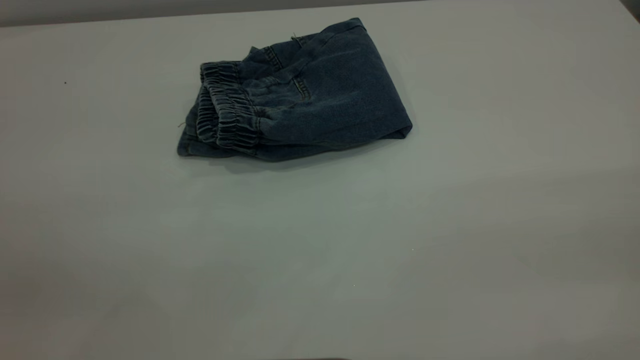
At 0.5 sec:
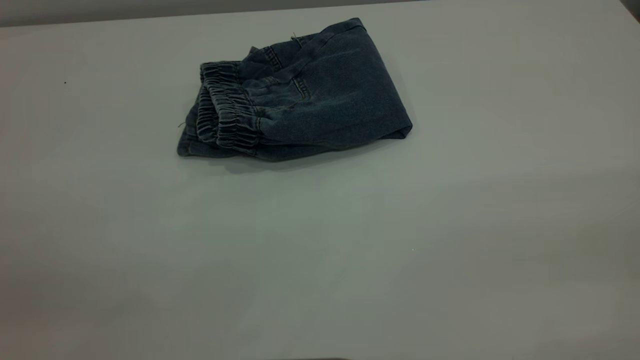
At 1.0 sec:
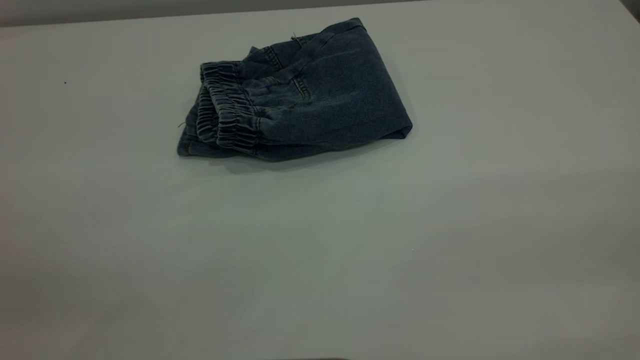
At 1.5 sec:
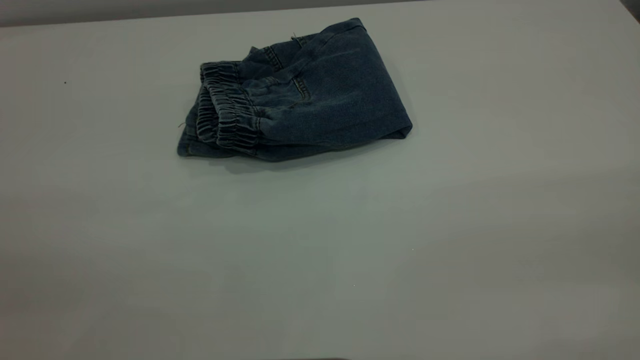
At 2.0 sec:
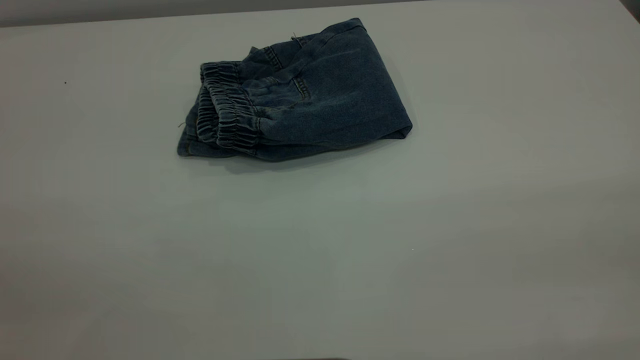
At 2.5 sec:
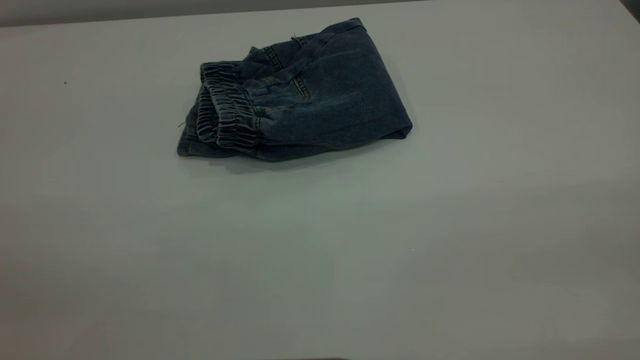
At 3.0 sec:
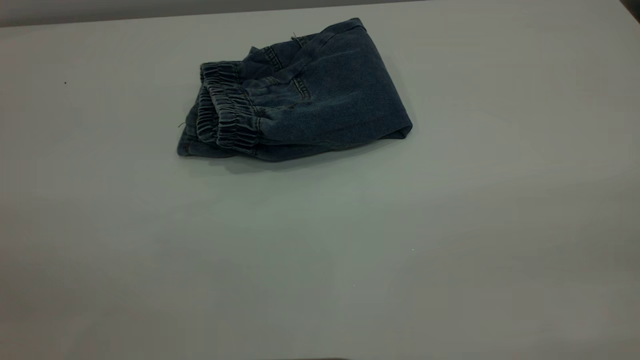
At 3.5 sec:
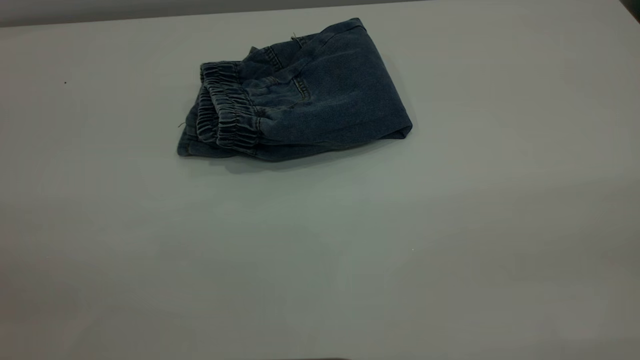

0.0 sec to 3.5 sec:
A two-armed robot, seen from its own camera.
2.0 sec to 3.5 sec: The two grippers keep their place.

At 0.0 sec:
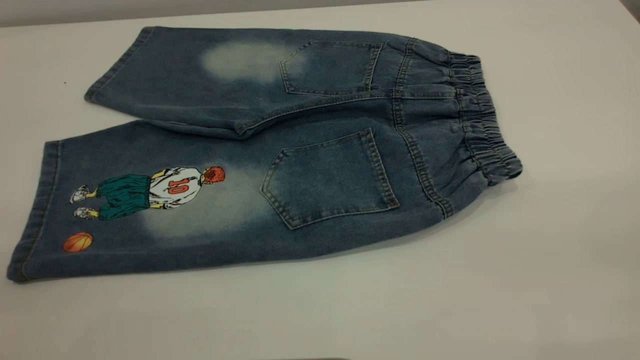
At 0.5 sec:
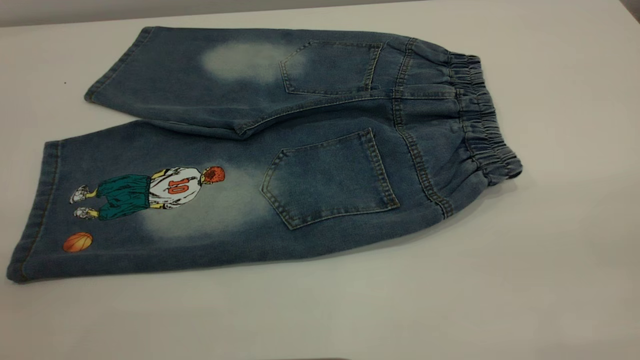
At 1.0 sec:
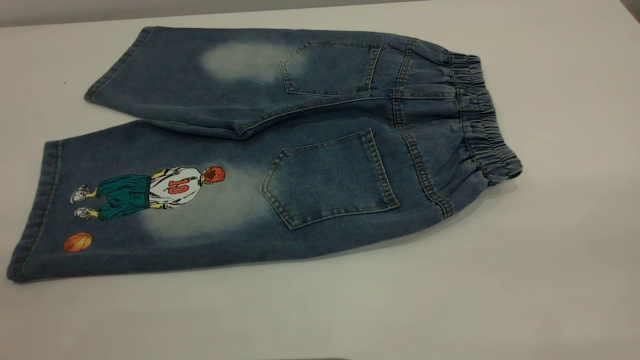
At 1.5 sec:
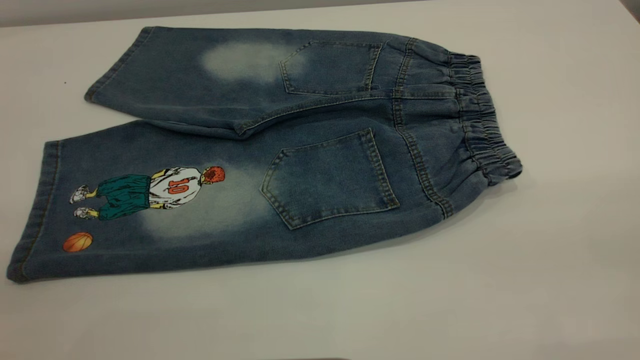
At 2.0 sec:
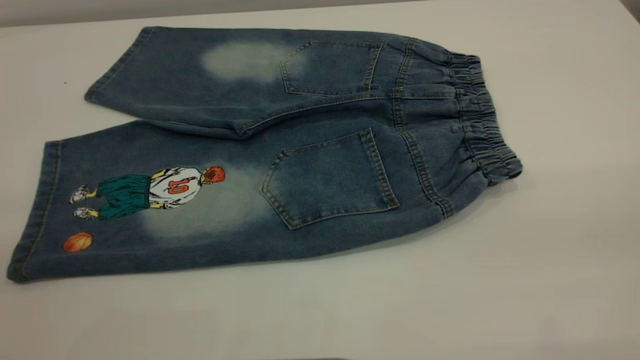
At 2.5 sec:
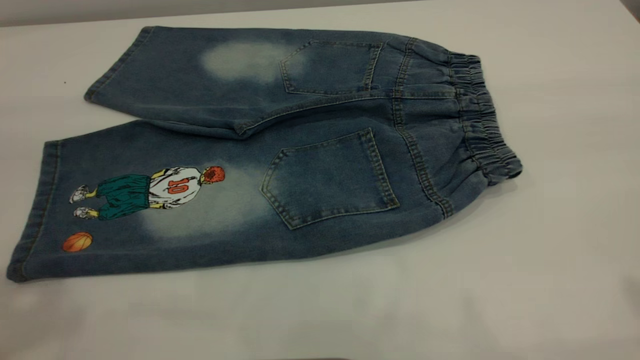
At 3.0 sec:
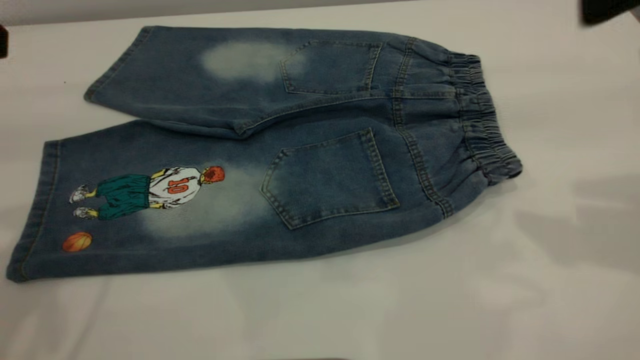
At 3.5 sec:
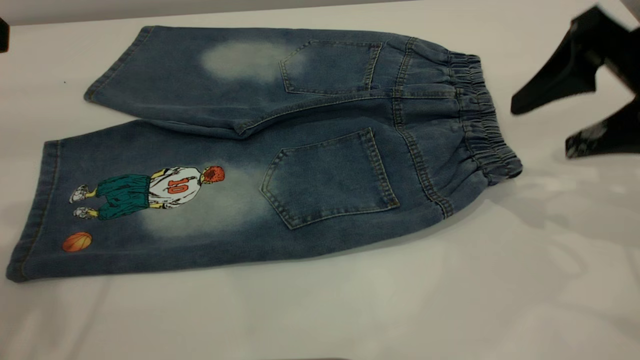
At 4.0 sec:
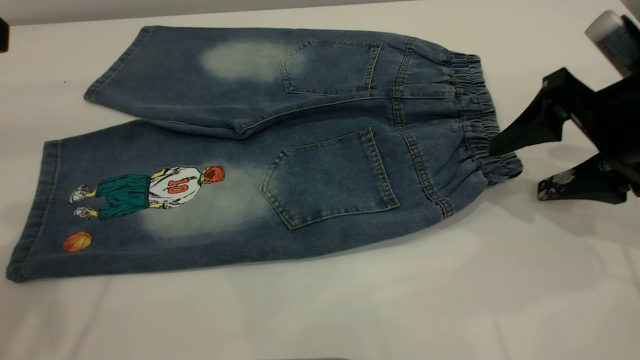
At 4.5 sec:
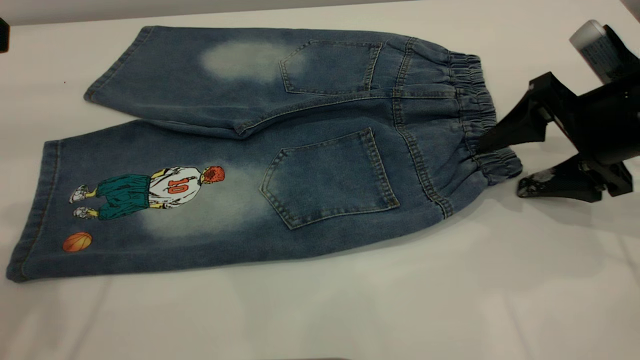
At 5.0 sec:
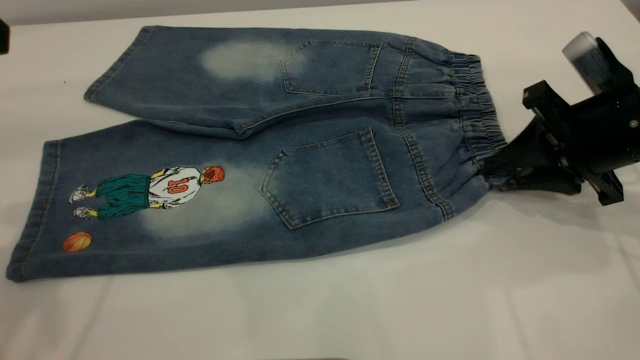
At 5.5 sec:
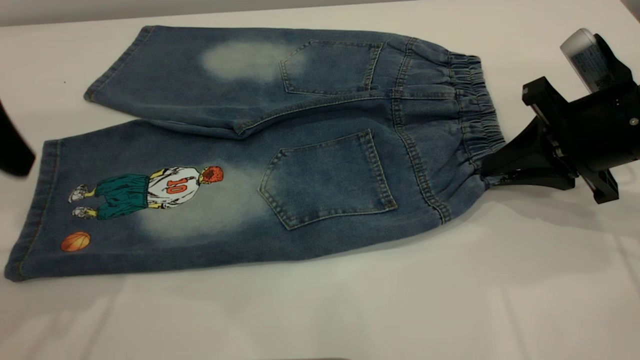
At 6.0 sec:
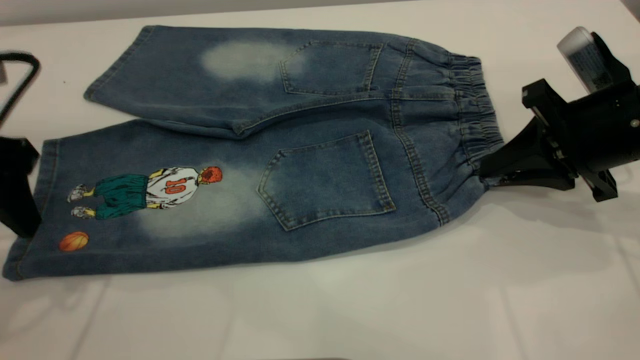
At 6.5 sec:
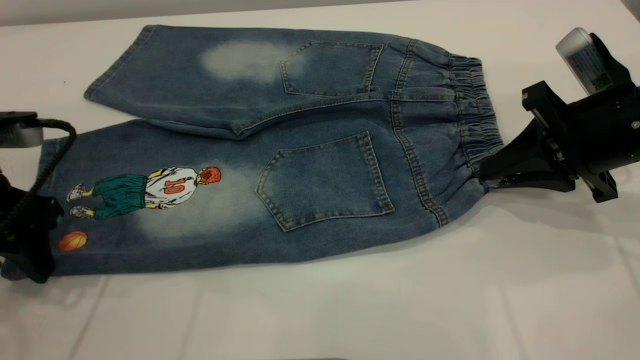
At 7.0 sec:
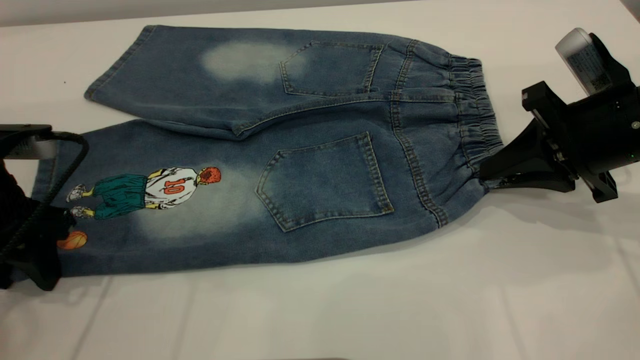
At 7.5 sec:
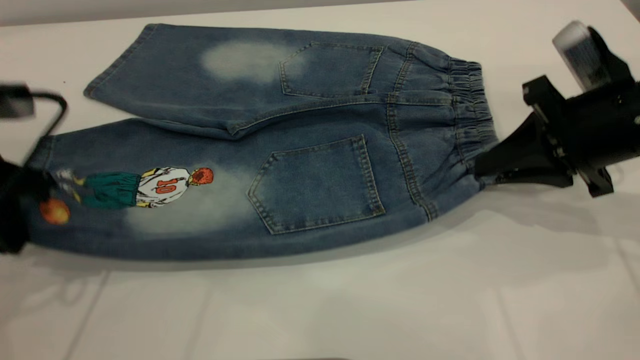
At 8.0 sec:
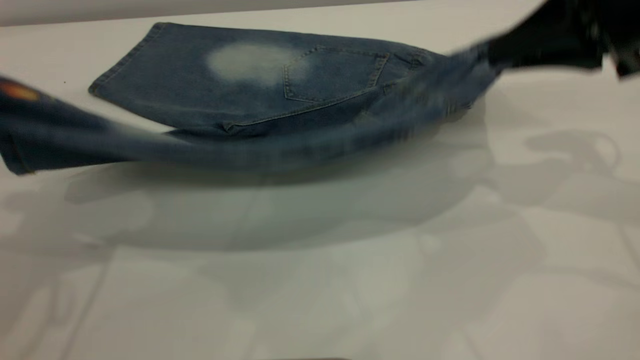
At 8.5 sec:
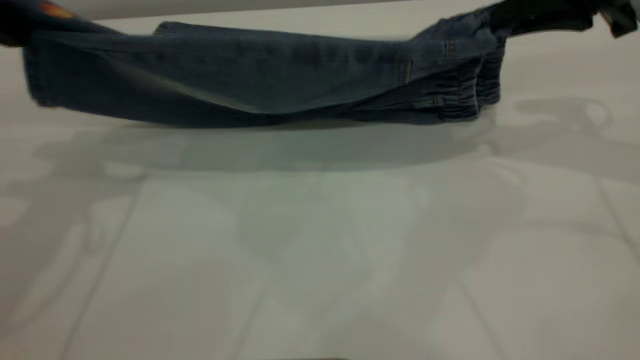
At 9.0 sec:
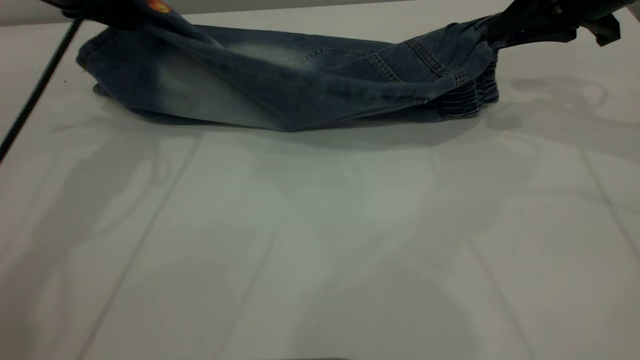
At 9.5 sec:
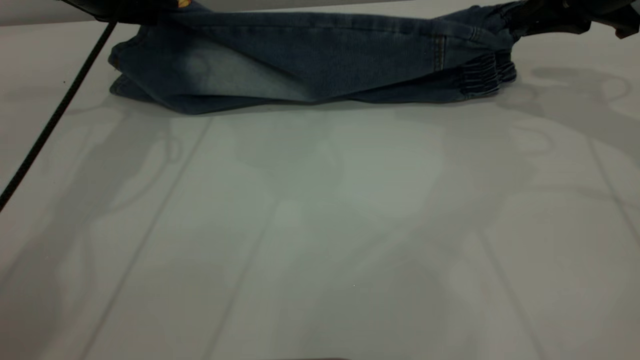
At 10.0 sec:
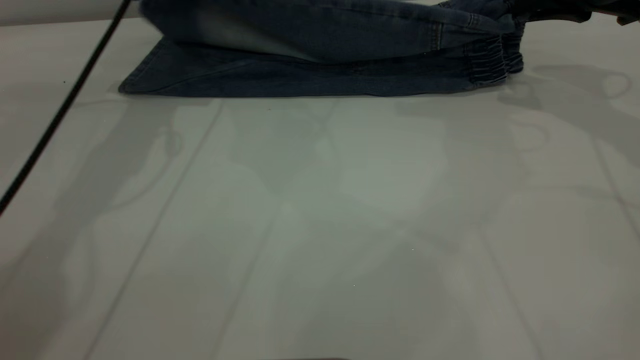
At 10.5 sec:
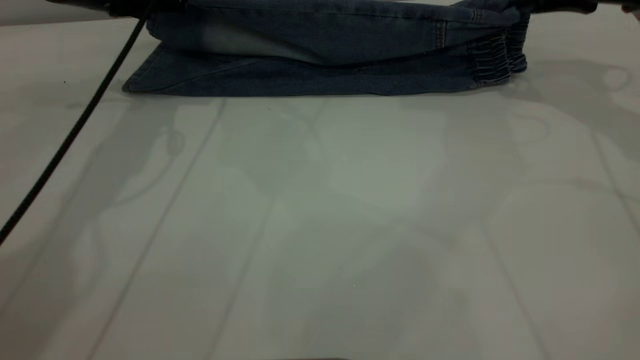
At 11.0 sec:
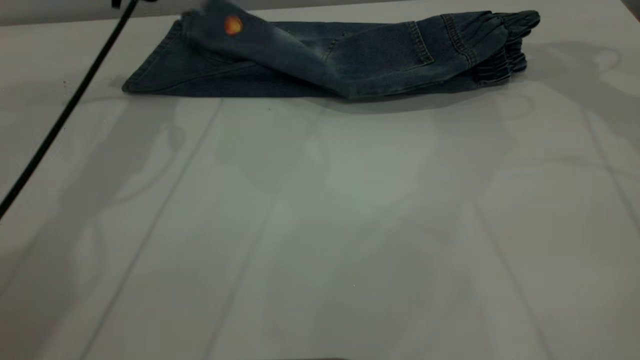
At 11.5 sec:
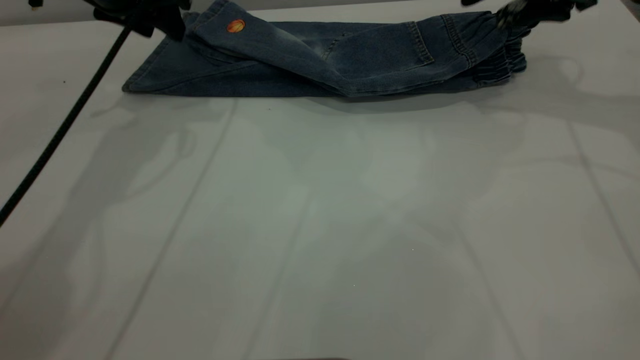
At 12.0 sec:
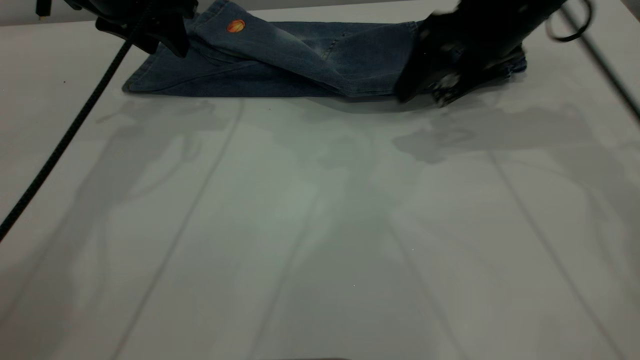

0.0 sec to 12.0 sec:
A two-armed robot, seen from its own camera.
Step, 0.0 sec to 11.0 sec: Fold the bottom of the pants upward.
2.0 sec to 4.0 sec: The right gripper heads forward and downward, covering roughly 35 cm.
4.0 sec to 6.0 sec: The right gripper closes up. The left gripper is displaced downward by approximately 10 cm.
6.0 sec to 8.0 sec: The grippers both shift upward by roughly 10 cm. The left gripper closes its fingers.
8.0 sec to 10.0 sec: The left gripper shifts about 20 cm forward; the right gripper shifts approximately 10 cm forward.
10.0 sec to 12.0 sec: The left gripper opens, while the right gripper moves to the left, about 10 cm, and opens up.

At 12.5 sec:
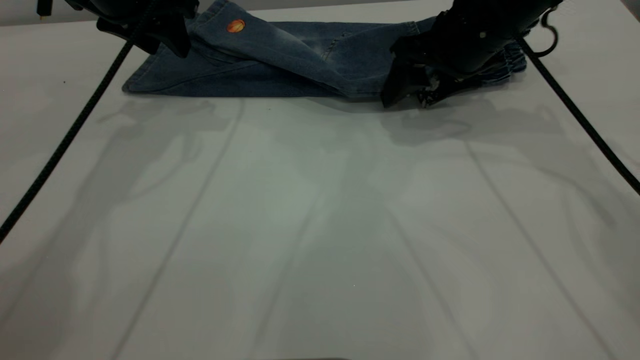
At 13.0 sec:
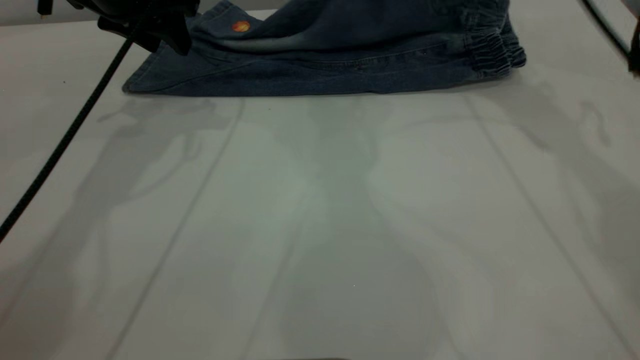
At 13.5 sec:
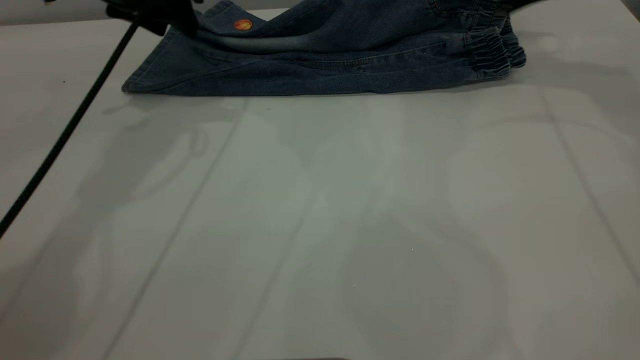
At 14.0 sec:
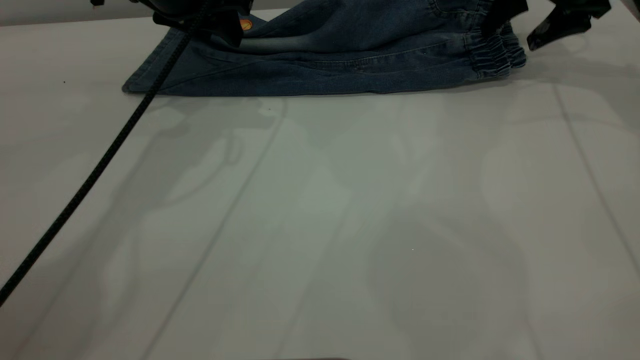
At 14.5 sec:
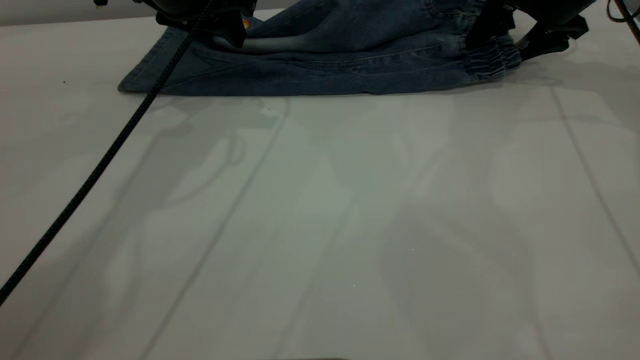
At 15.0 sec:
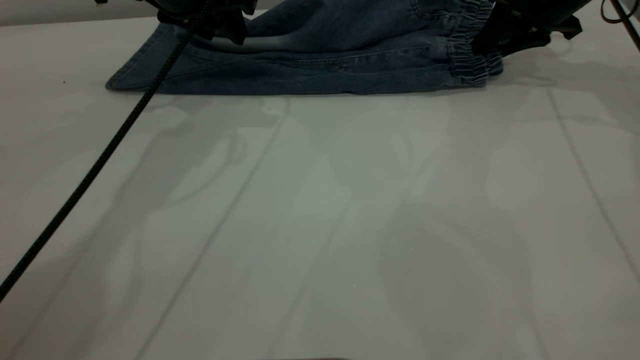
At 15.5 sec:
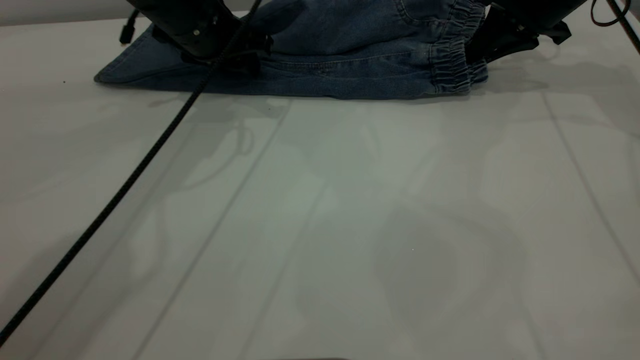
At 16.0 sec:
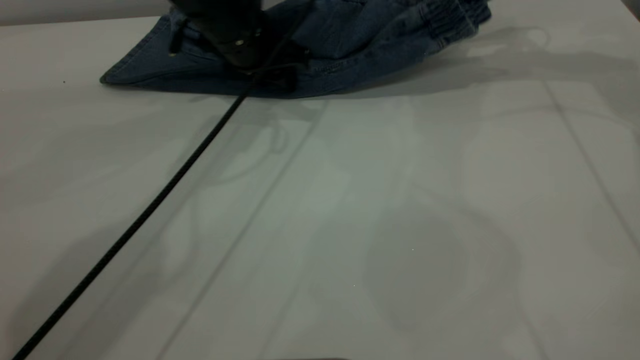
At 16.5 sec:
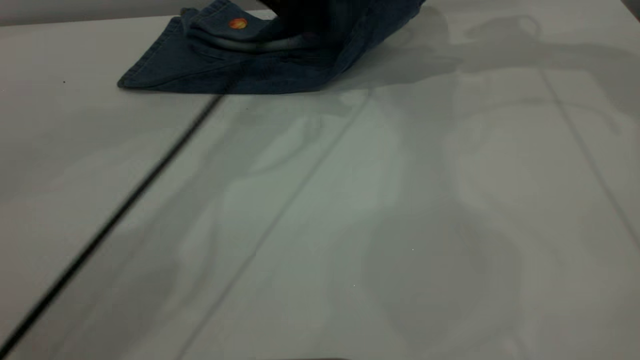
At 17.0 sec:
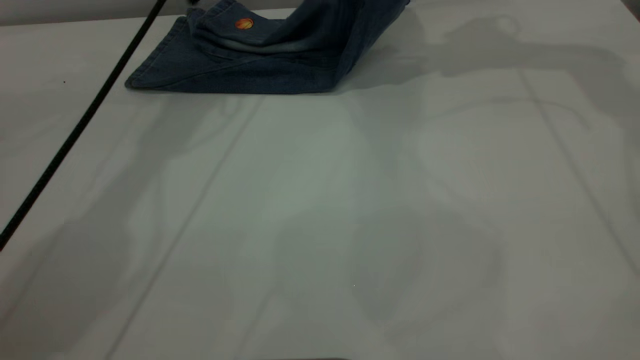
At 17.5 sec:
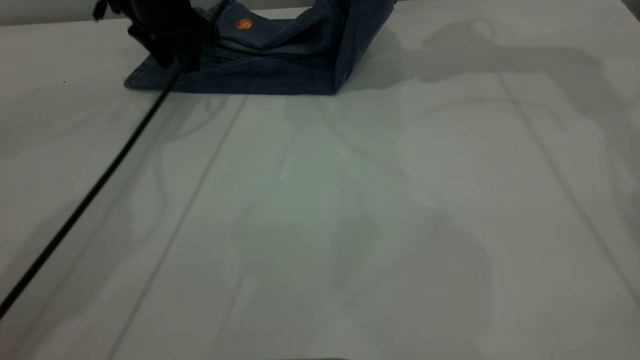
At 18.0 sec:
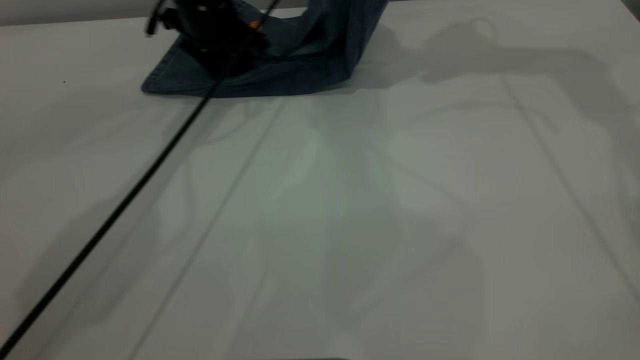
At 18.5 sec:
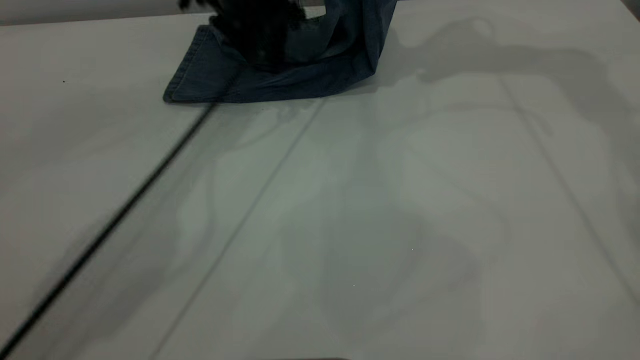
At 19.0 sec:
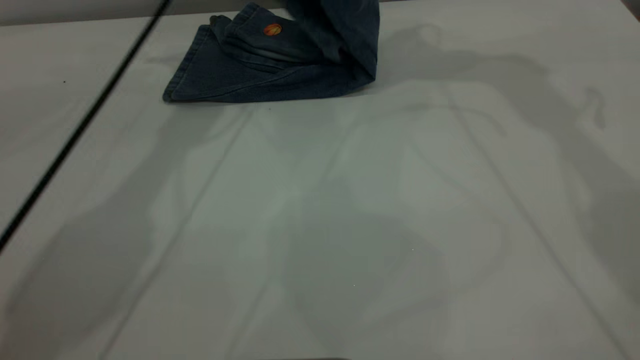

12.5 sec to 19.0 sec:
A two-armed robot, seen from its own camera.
12.5 sec to 14.5 sec: The left gripper moves to the right, about 5 cm; the right gripper goes about 15 cm to the right and forward.
14.5 sec to 17.0 sec: The right gripper goes approximately 15 cm upward, and closes. The left gripper heads forward, covering about 10 cm, and reaches approximately 10 cm to the right, then returns.
17.0 sec to 19.0 sec: The left gripper moves about 10 cm downward and comes back. The right gripper shifts roughly 10 cm to the left.
